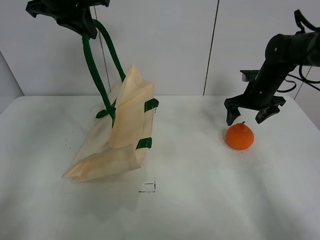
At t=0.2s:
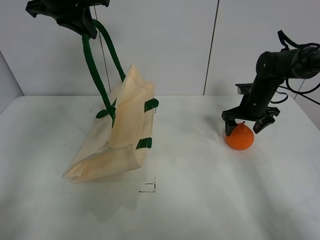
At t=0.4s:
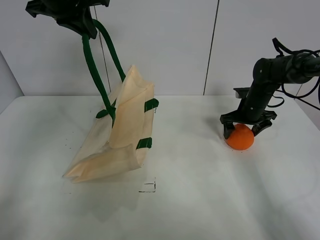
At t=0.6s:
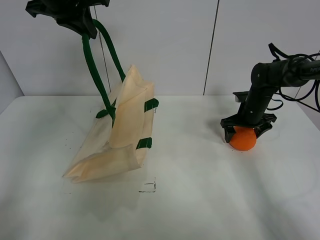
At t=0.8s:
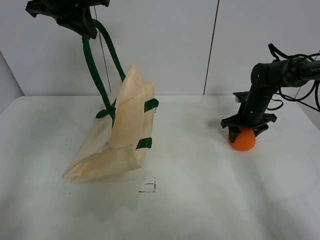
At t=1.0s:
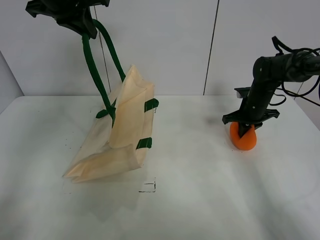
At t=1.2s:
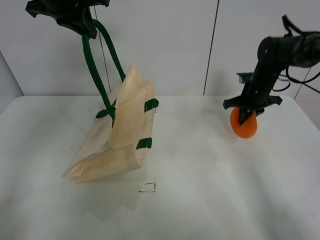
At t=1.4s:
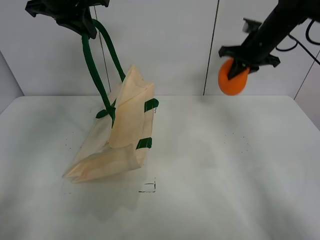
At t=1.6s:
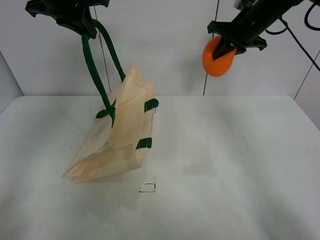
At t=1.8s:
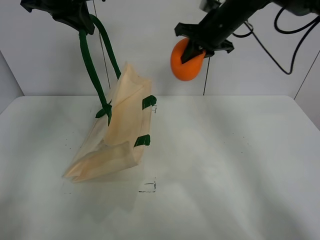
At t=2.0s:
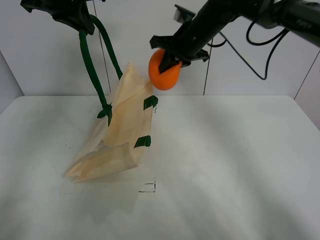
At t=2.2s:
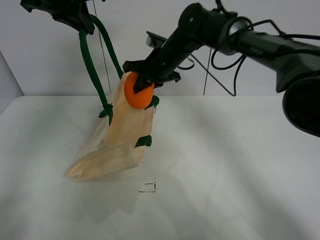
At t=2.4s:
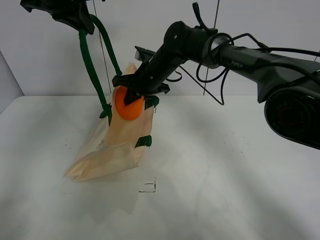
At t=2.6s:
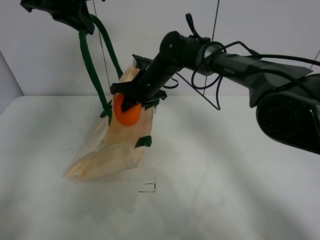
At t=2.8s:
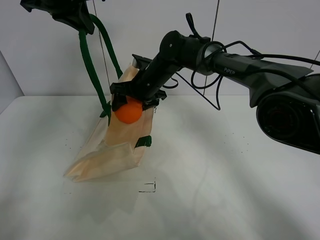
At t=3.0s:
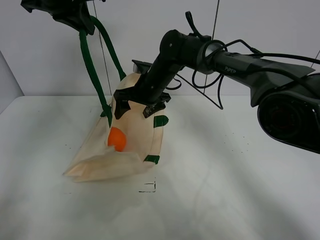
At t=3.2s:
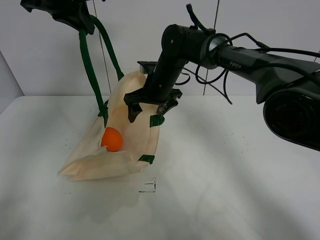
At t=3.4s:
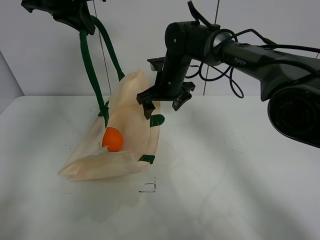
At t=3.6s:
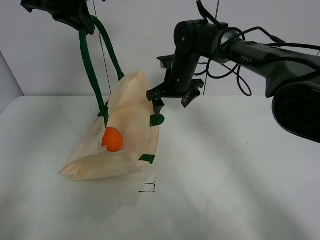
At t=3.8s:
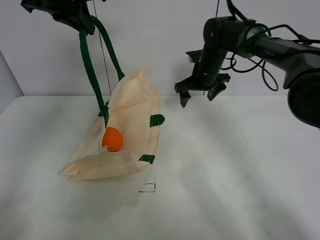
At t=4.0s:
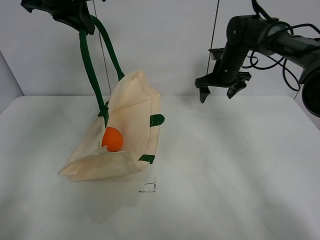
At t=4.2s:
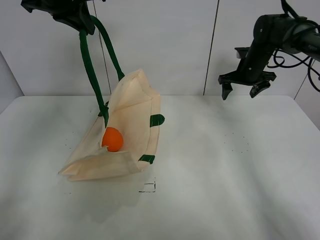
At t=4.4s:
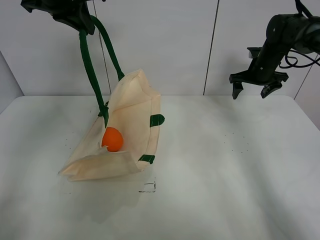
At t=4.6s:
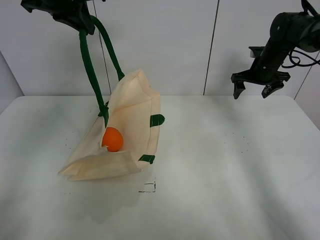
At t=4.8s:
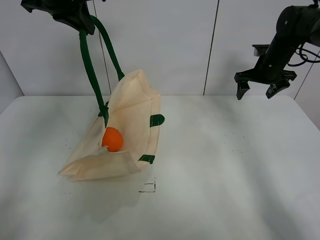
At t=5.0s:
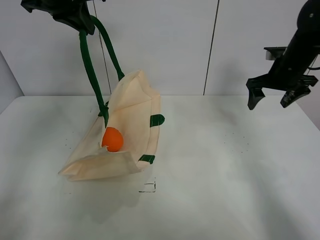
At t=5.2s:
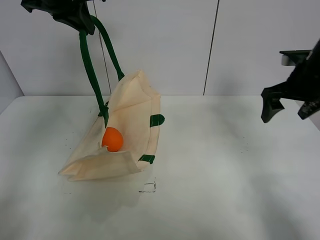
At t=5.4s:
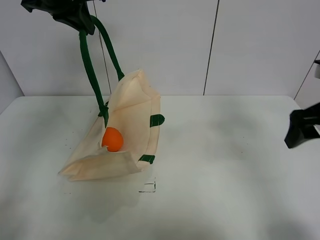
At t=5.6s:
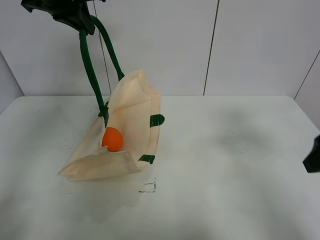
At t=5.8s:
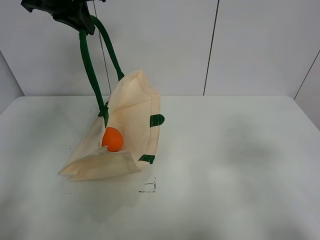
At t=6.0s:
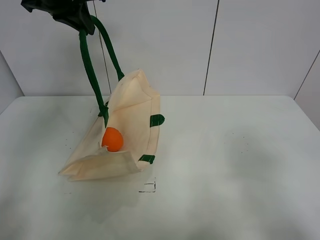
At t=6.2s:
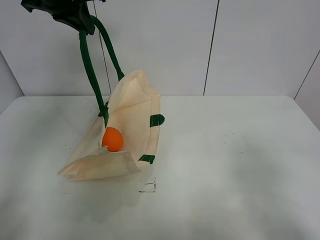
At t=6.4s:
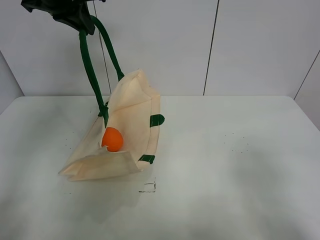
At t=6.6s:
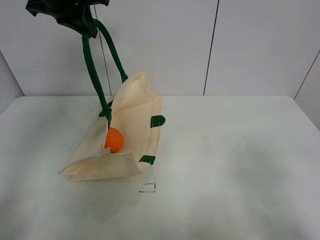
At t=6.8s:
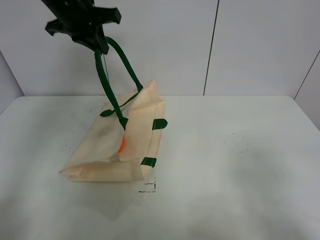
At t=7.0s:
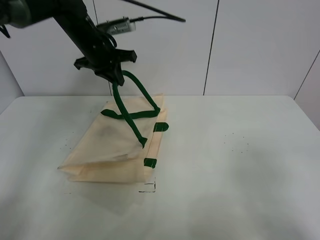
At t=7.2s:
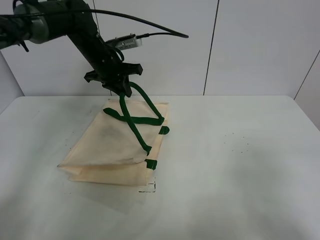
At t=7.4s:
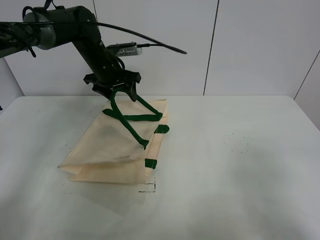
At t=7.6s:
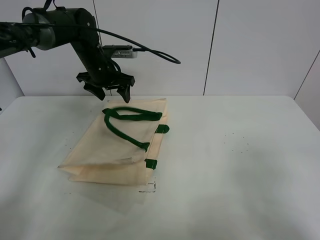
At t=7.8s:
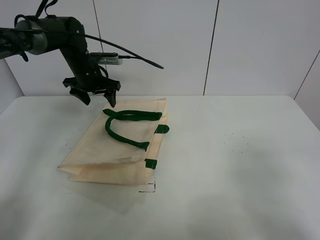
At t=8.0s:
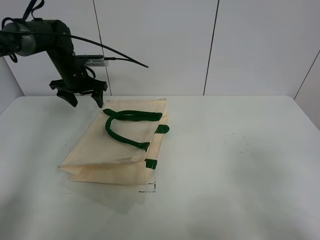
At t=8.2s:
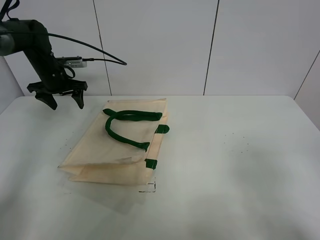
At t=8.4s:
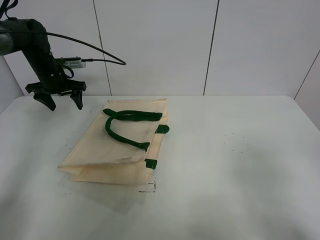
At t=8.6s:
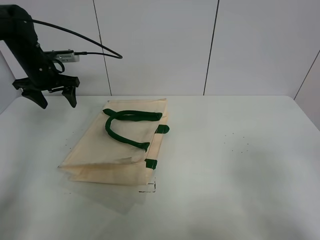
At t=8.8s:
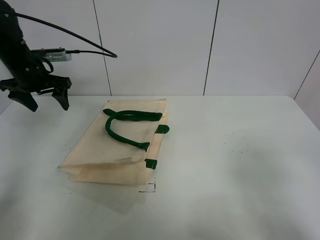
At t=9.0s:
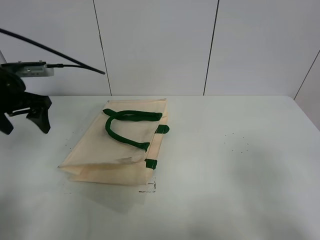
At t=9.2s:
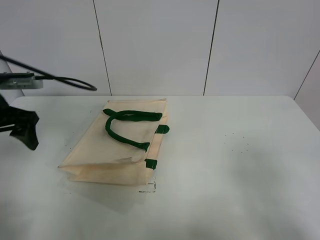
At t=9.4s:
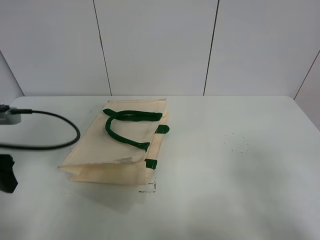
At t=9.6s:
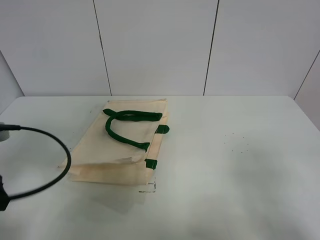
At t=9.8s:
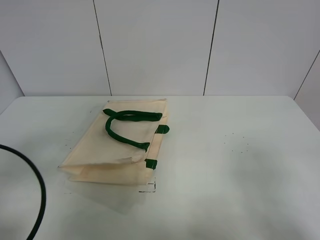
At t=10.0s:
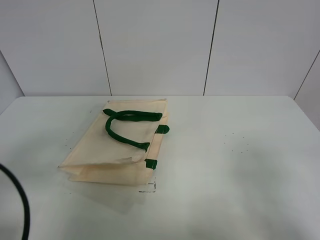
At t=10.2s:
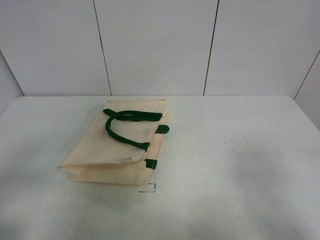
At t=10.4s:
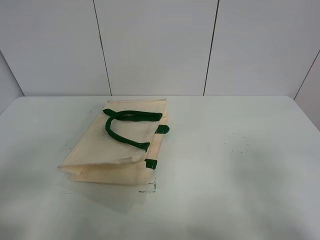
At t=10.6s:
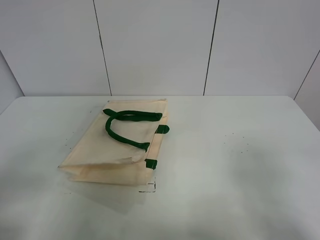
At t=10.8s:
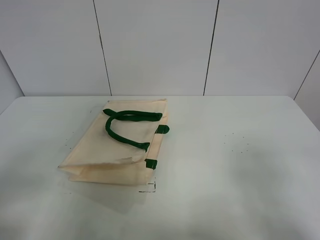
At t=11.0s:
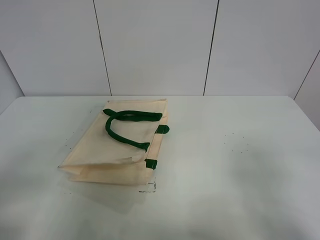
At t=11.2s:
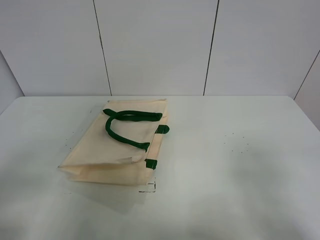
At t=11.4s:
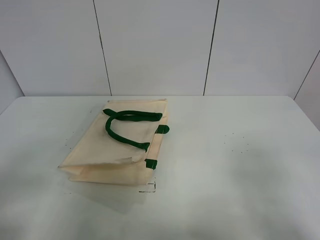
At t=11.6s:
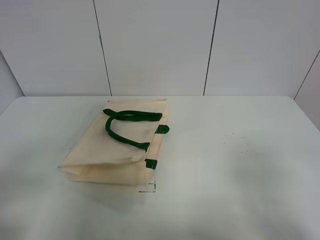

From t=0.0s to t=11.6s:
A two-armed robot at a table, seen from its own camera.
Task of the whole recording: open the white linen bag and put the orange in the bag.
Step, from t=0.0s to t=1.0s: Grasp the orange with right gripper.
Step, from t=1.2s to t=3.0s: Place the orange in the basket with right gripper.
Step, from t=3.2s to t=7.6s: Put down the handbag with left gripper.
From t=0.0s to t=1.4s: The right gripper is displaced upward by approximately 10 cm, and closes its fingers.
From t=1.4s to t=2.8s: The right gripper goes about 25 cm to the left, and opens up.
From t=2.8s to t=4.4s: The right gripper is displaced to the right by about 30 cm.
From t=4.4s to t=5.8s: The right gripper goes about 40 cm backward.
From t=5.8s to t=7.2s: The right gripper goes roughly 5 cm backward; the left gripper moves downward and forward, approximately 20 cm.
From t=7.2s to t=8.8s: The left gripper travels to the left and backward by approximately 15 cm, and opens its fingers.
From t=8.8s to t=10.2s: The left gripper goes some 35 cm backward.
